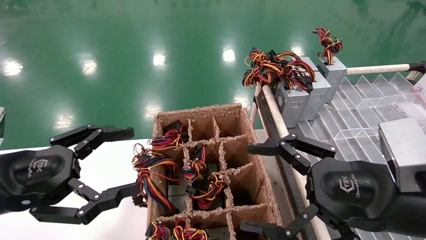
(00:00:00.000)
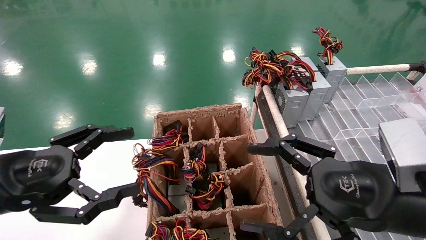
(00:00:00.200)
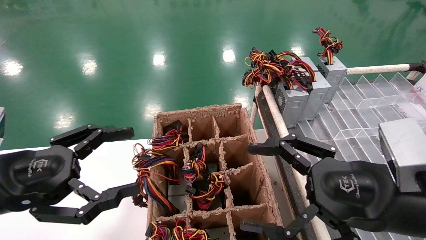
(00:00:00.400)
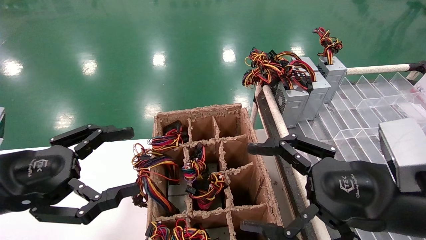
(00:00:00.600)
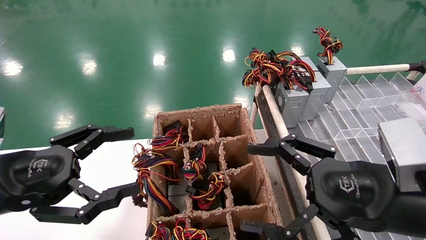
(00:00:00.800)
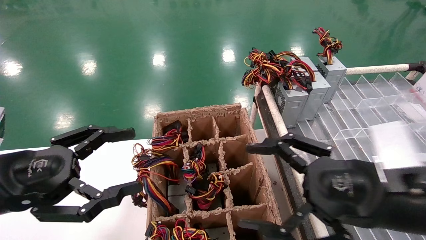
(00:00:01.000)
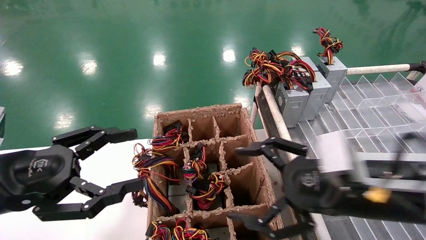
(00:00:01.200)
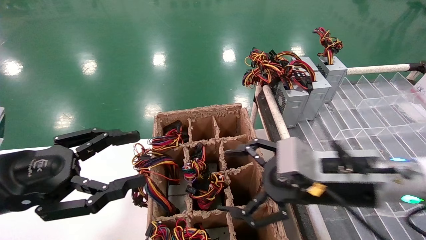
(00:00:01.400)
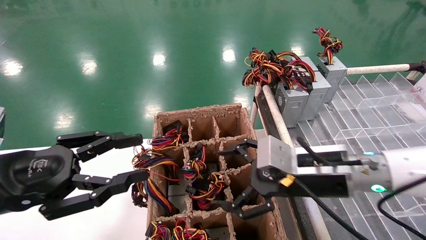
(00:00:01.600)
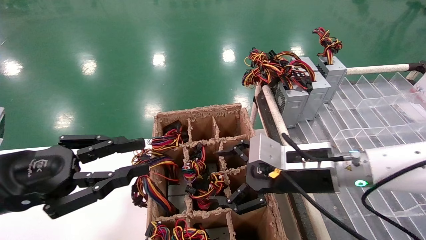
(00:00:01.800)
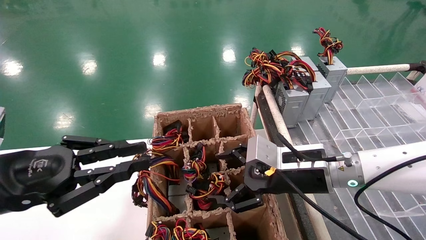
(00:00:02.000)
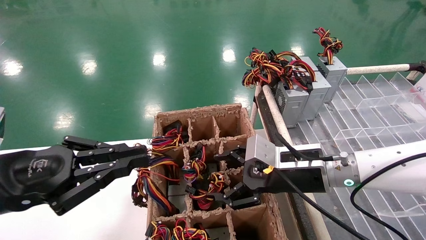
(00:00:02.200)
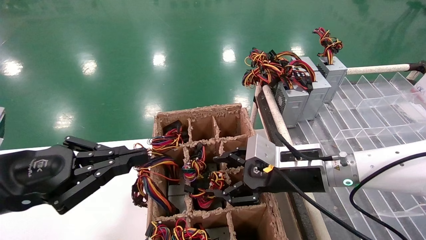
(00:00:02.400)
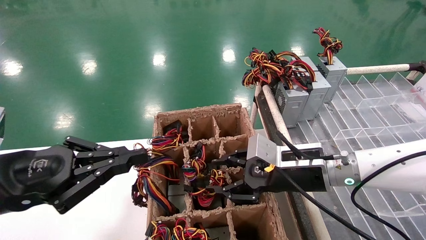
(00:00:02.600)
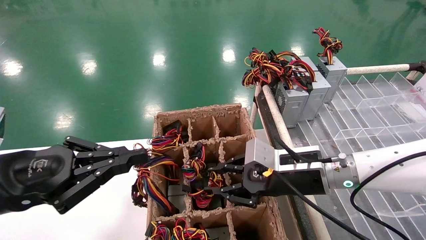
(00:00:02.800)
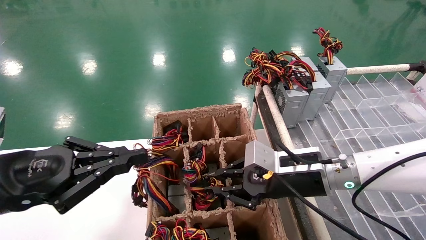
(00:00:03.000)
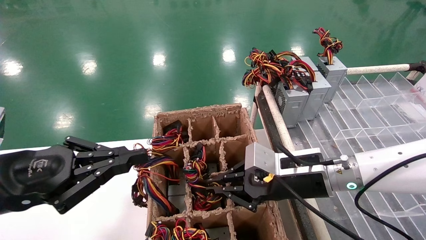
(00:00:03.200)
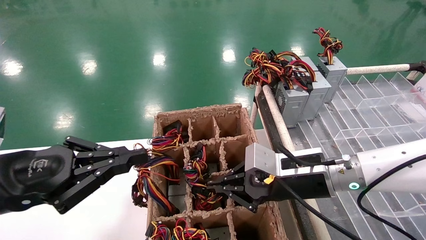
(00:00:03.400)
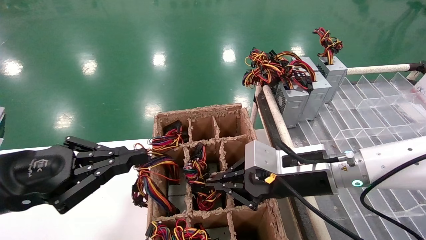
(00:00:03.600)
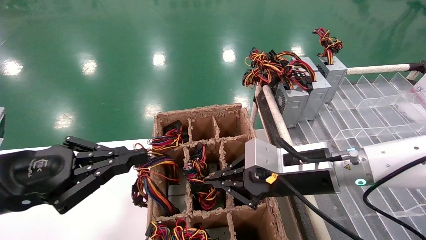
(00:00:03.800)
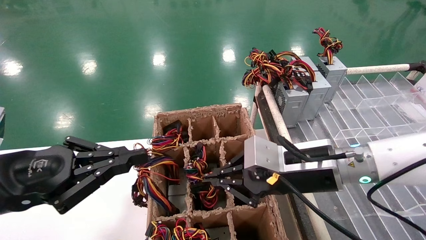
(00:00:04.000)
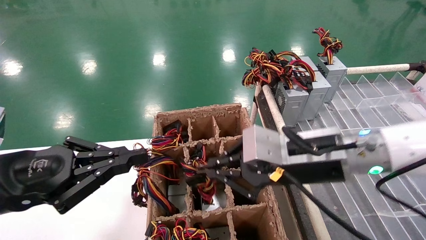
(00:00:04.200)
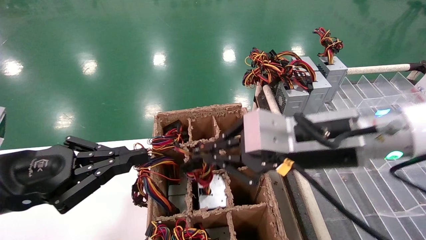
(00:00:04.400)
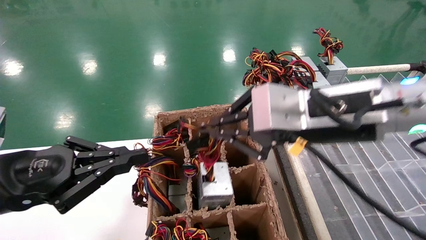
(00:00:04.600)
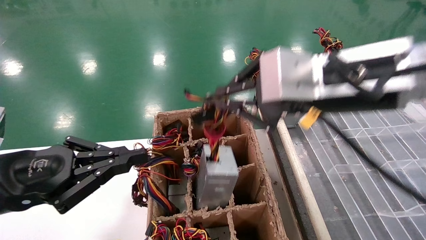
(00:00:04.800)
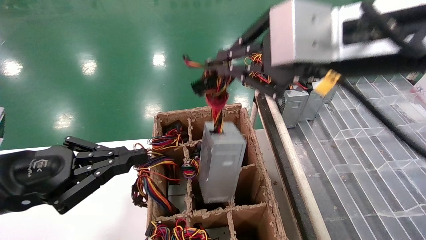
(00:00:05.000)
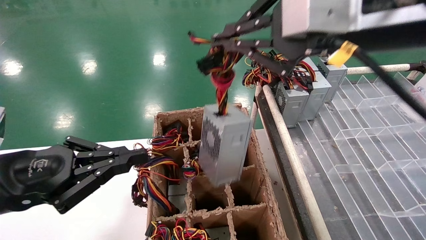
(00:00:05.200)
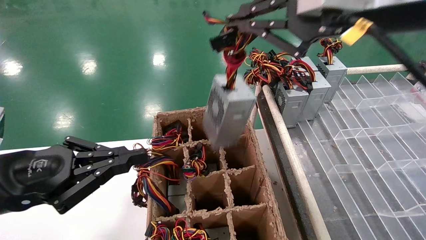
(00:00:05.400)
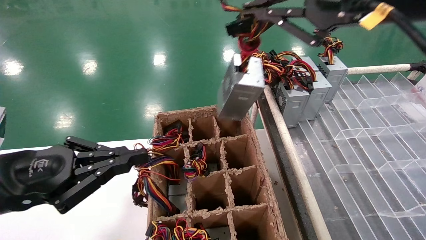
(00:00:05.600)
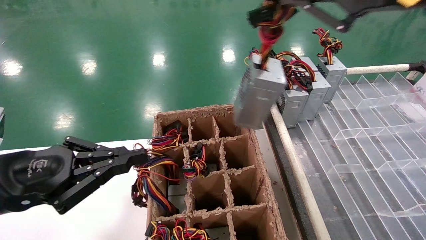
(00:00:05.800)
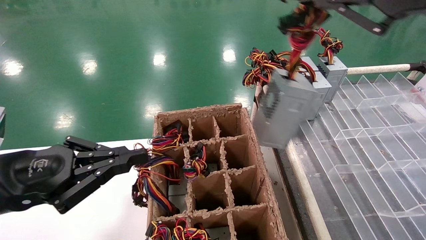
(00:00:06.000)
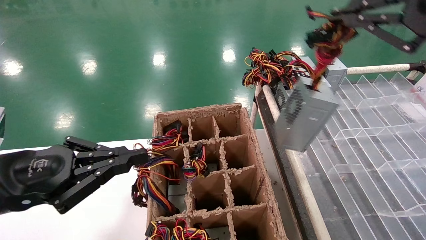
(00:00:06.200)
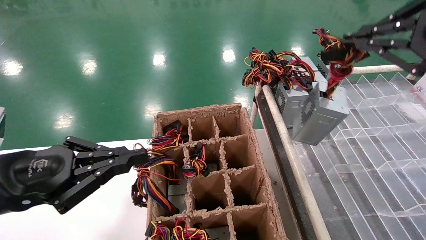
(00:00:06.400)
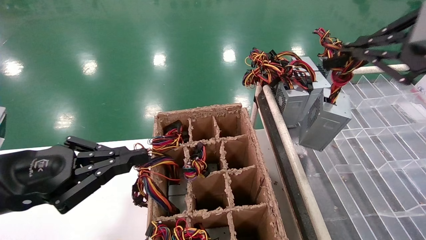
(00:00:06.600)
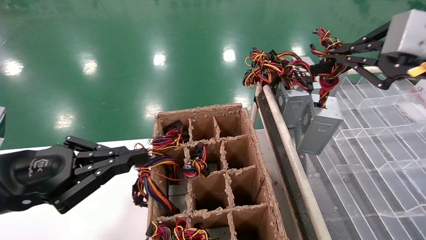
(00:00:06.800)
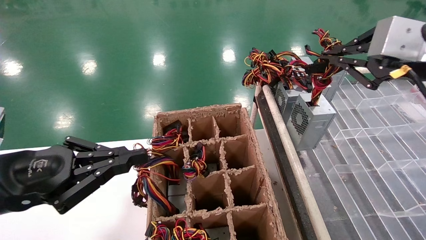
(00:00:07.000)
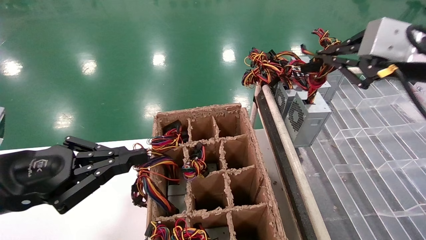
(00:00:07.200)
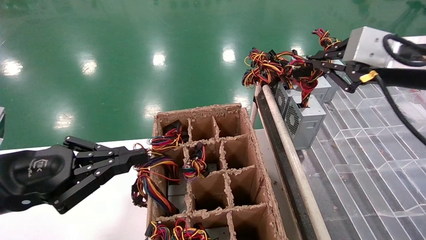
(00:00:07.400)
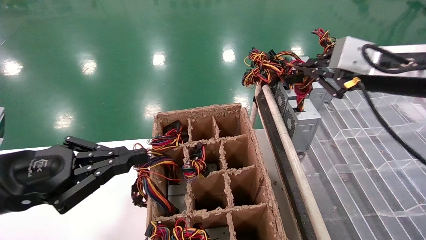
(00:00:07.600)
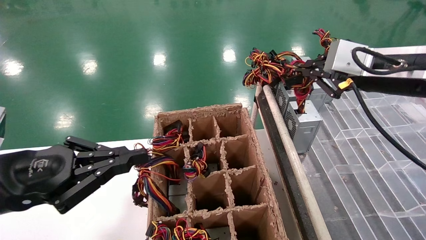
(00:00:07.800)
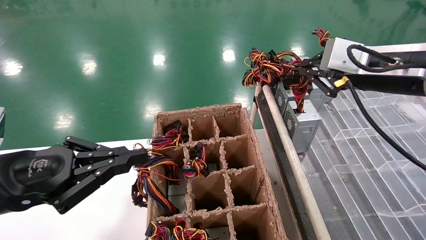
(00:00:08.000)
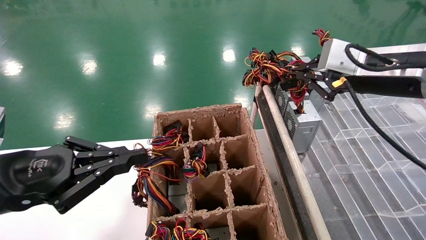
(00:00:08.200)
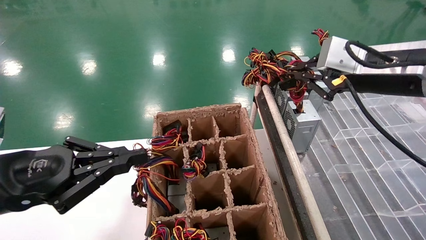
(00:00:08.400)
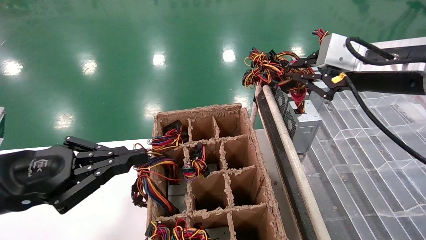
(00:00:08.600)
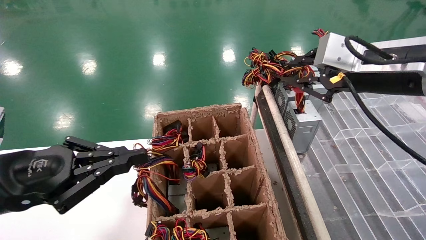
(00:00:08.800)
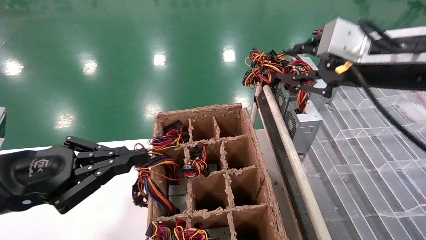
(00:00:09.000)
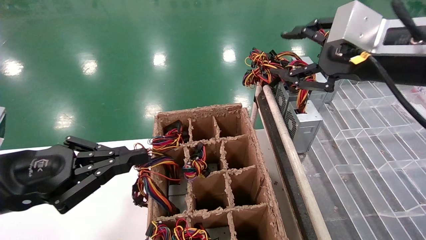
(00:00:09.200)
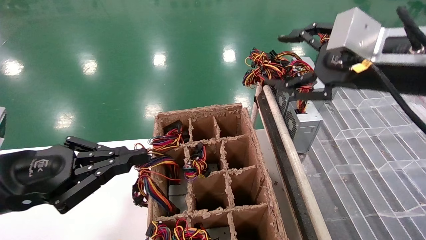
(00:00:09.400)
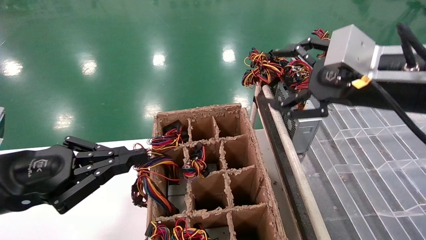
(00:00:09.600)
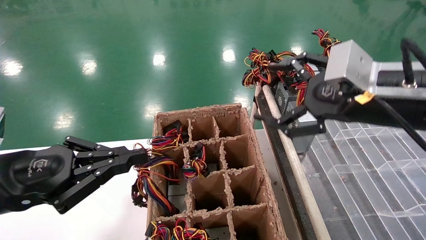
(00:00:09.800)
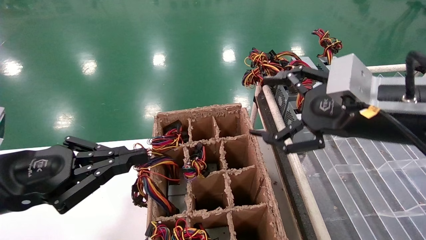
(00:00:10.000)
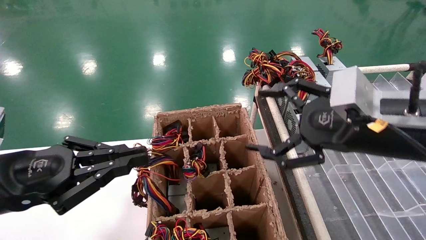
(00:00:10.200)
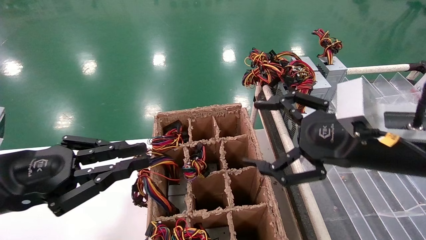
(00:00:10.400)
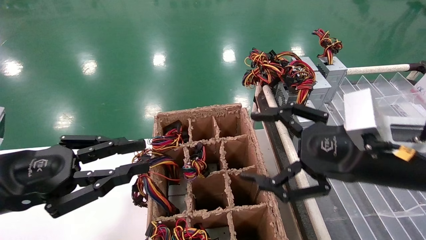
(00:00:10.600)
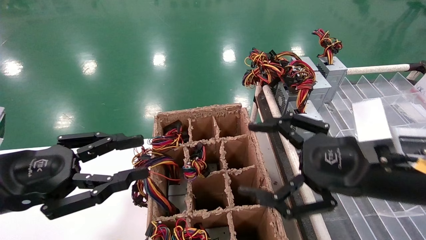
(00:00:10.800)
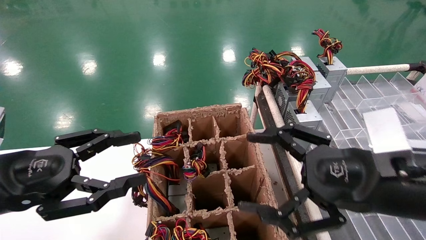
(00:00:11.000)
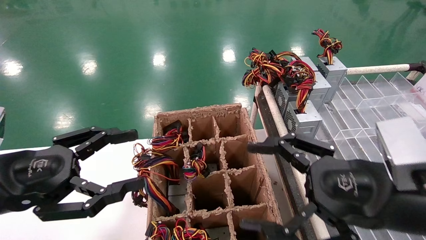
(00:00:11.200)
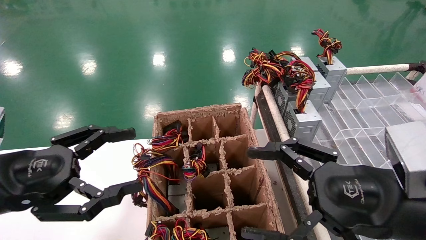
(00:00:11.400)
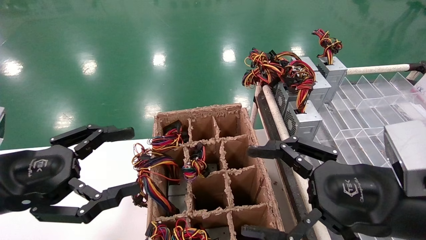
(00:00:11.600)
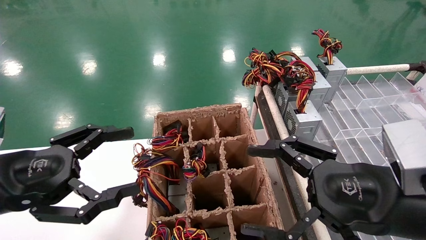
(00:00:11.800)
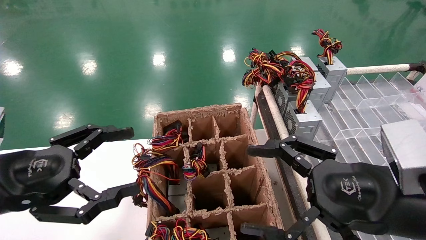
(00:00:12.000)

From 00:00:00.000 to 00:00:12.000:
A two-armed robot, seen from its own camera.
Step, from 00:00:01.200 to 00:00:03.400: Grab the main unit power supply from the containment box.
Step, from 00:00:03.600 to 00:00:09.000: Place the main unit power supply in the designated area.
From 00:00:00.000 to 00:00:01.600: The right gripper goes some 10 cm forward and to the left.
From 00:00:01.600 to 00:00:03.000: The left gripper closes. Meanwhile the right gripper closes.
From 00:00:03.000 to 00:00:04.400: The right gripper moves upward and backward, about 15 cm.
From 00:00:04.400 to 00:00:06.000: The right gripper is displaced upward, to the right and backward by roughly 20 cm.
From 00:00:06.000 to 00:00:07.600: The right gripper goes approximately 15 cm forward and downward.
From 00:00:07.600 to 00:00:09.000: The grippers move only a little.
From 00:00:09.000 to 00:00:10.400: The right gripper goes approximately 10 cm downward, and opens its fingers.
From 00:00:10.400 to 00:00:12.000: The left gripper opens. Meanwhile the right gripper ends up approximately 5 cm from where it was.

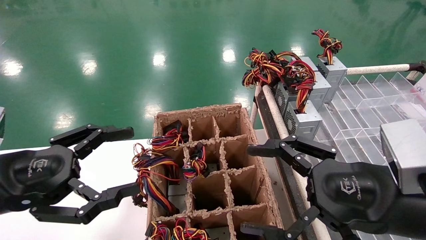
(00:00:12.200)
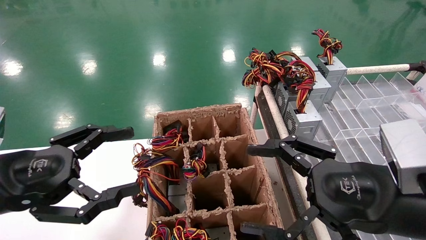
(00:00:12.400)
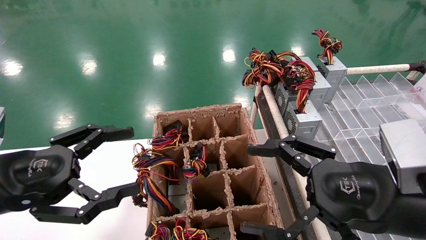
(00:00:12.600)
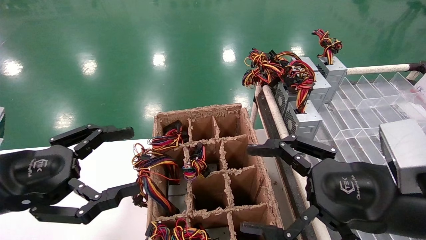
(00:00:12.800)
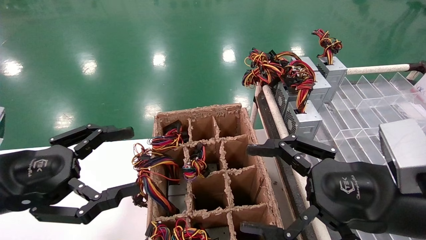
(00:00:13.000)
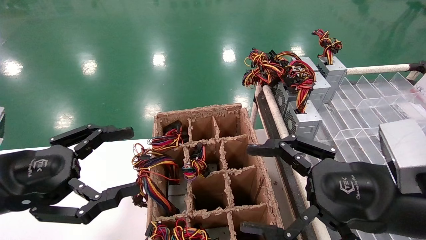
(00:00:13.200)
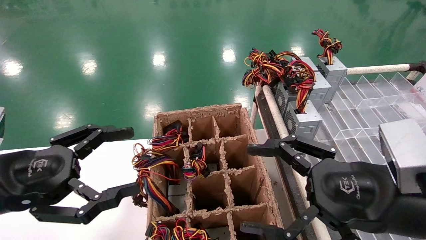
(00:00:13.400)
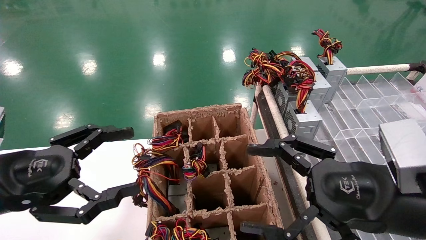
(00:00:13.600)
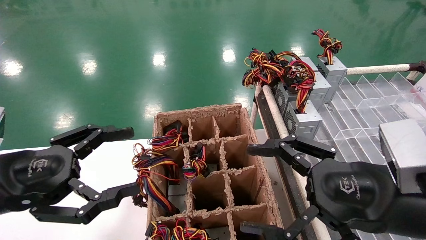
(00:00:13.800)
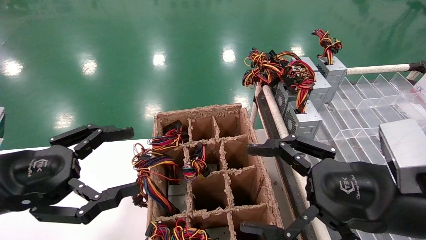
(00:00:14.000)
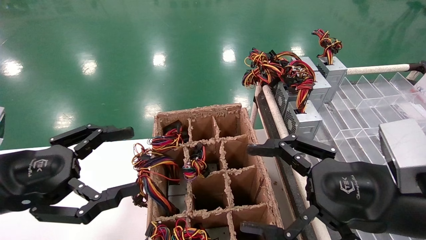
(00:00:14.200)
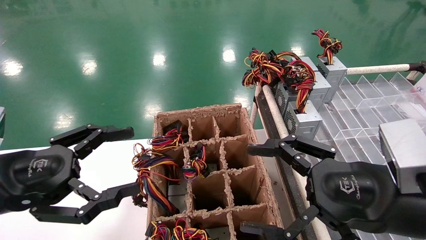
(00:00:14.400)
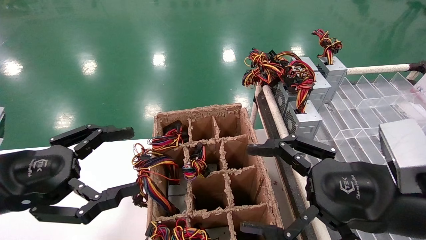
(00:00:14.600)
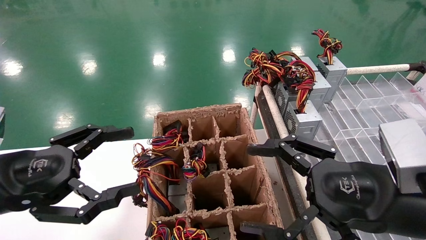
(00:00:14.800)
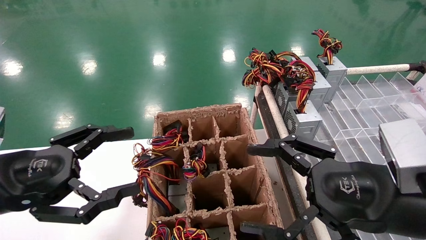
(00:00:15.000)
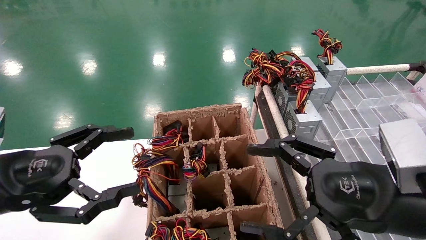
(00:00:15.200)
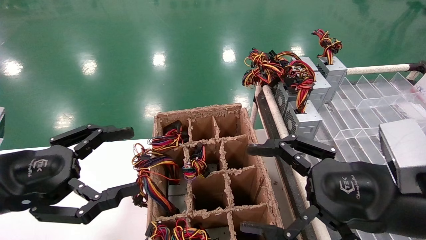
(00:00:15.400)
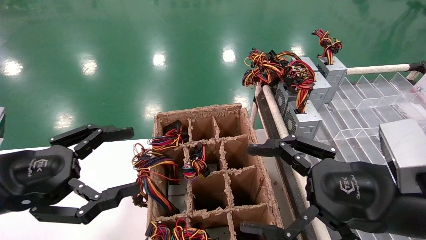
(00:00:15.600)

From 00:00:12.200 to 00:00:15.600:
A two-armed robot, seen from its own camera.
From 00:00:12.200 to 00:00:15.600: The two grippers keep their place.
